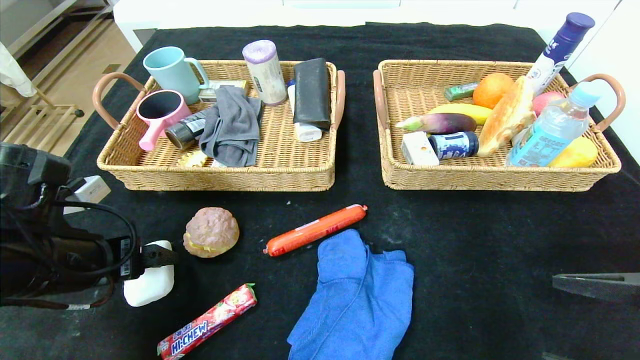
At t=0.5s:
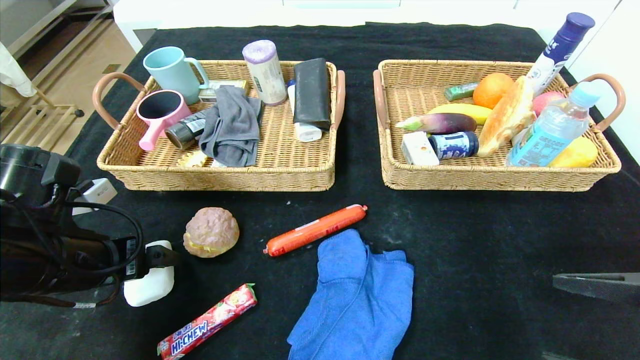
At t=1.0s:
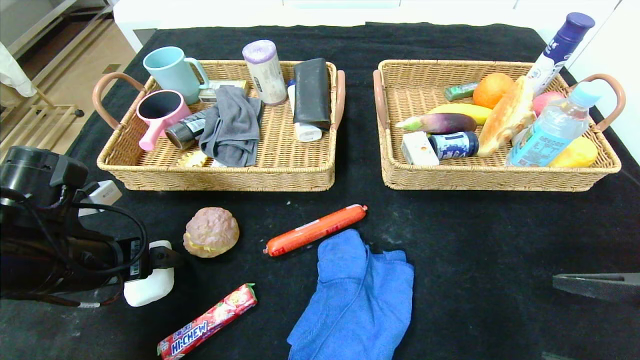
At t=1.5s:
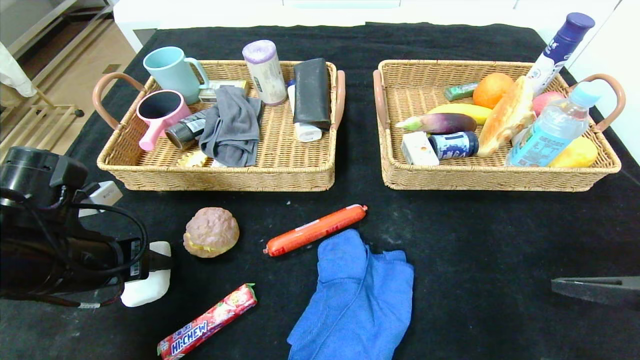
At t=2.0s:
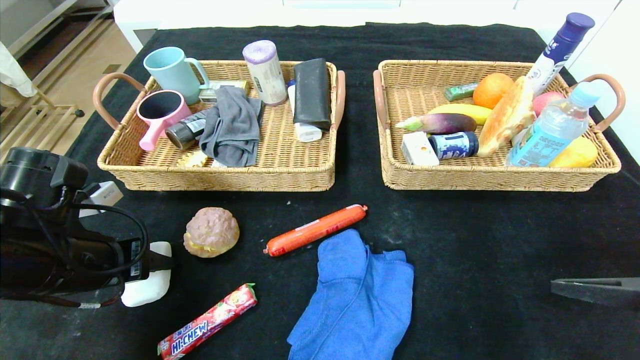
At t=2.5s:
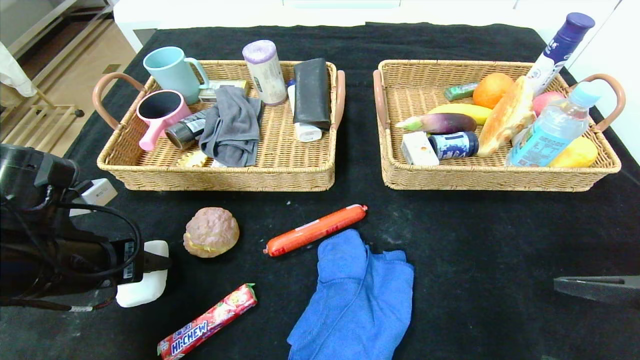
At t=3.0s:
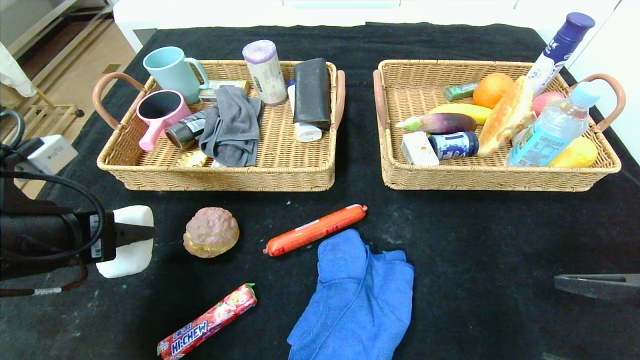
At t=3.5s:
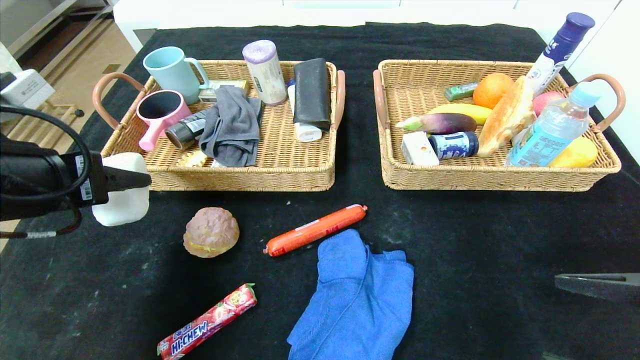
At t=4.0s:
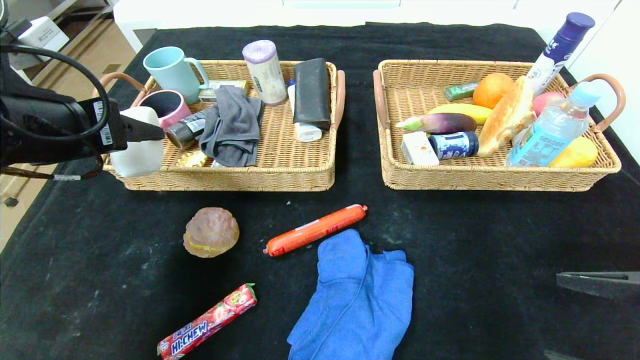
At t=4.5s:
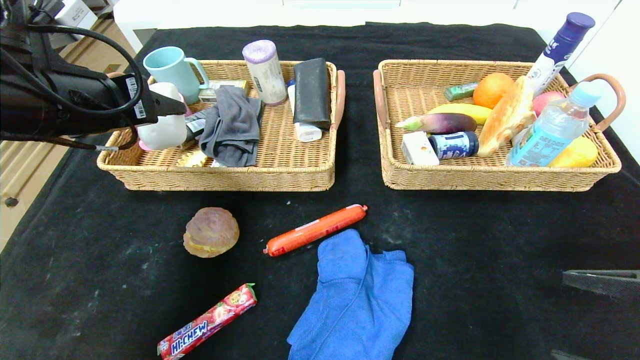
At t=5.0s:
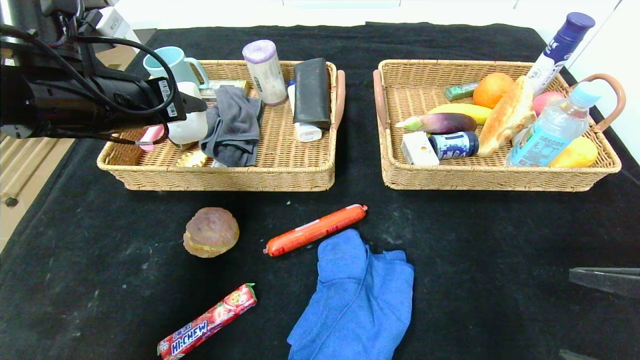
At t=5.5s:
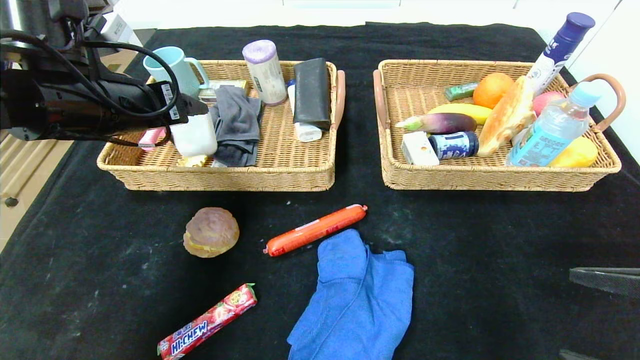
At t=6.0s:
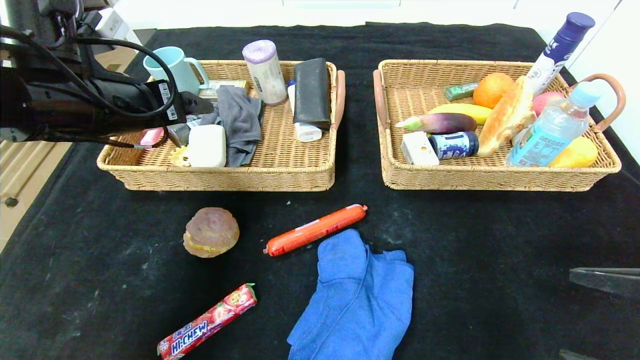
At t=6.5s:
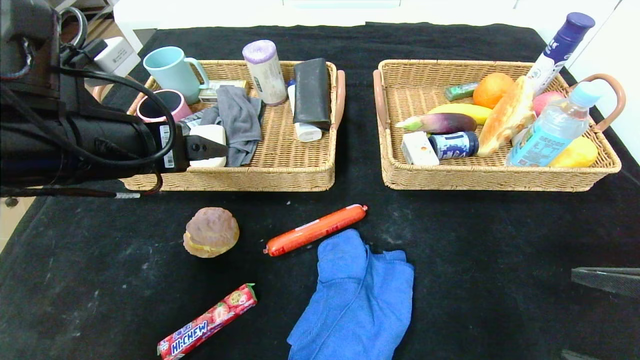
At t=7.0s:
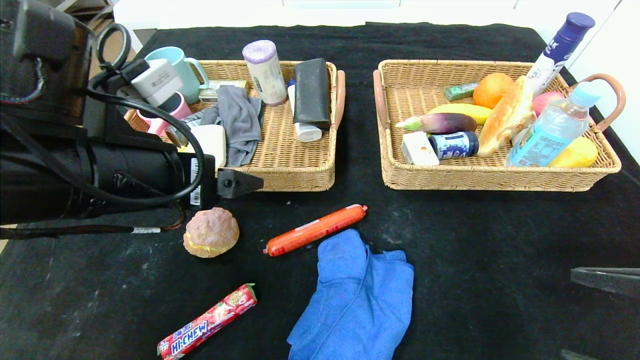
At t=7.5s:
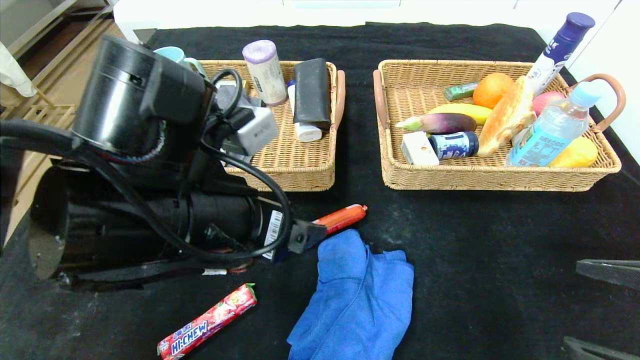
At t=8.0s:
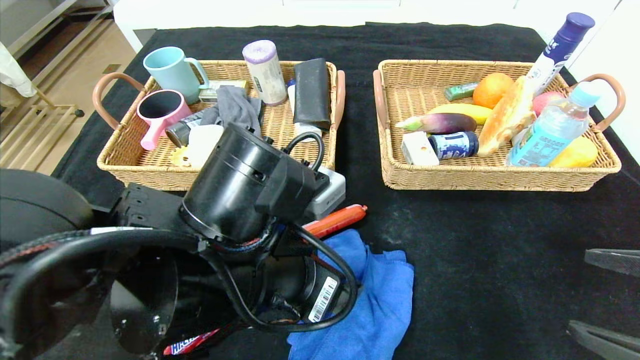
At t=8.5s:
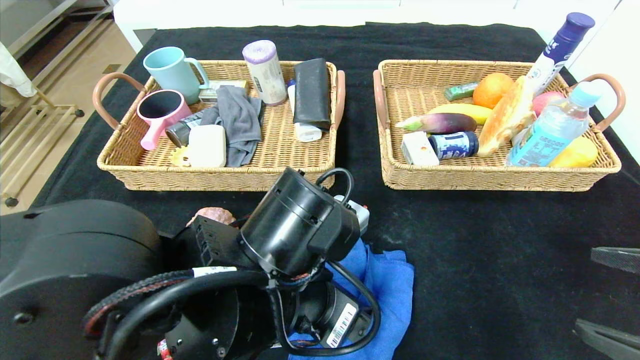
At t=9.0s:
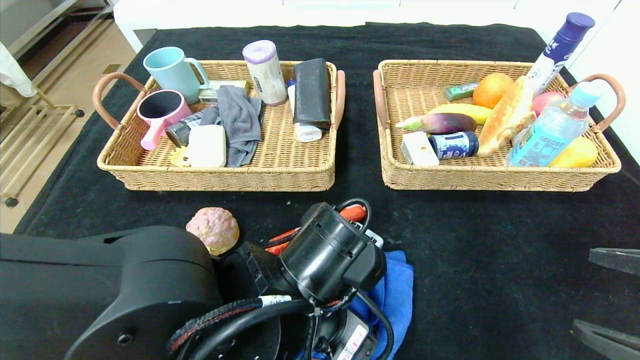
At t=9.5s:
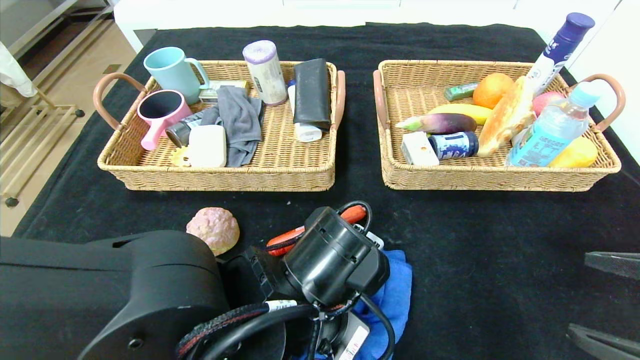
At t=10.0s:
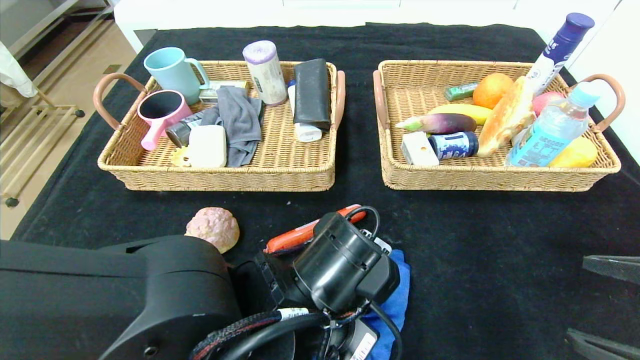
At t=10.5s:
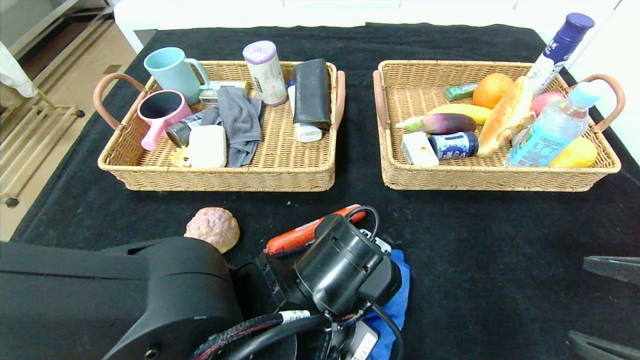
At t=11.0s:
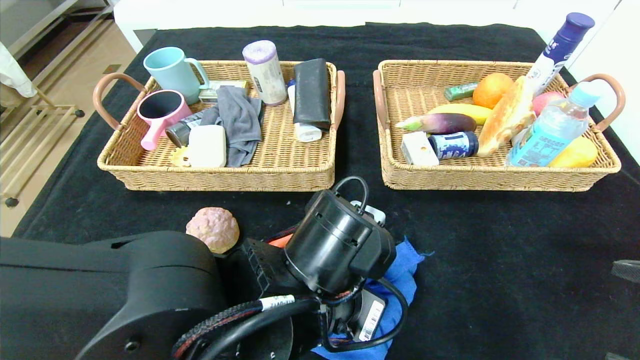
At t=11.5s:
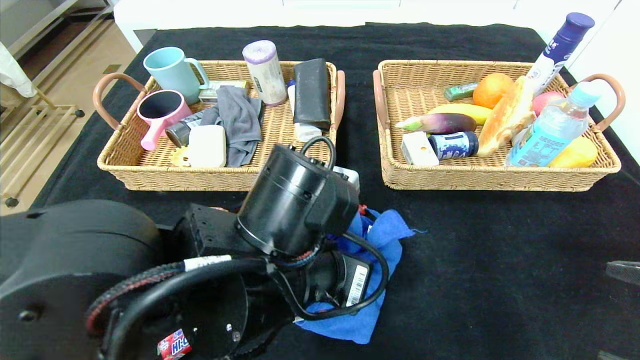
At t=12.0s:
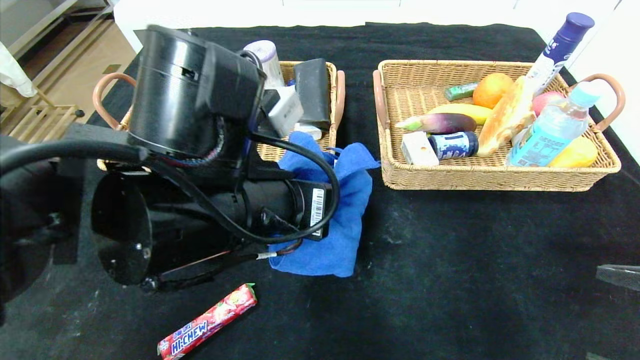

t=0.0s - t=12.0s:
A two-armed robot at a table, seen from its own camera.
Step, t=0.0s - t=6.5s: Pick up the soap and put it in the left basket.
t=0.0s - t=2.0s: The left gripper closes its fingers.
t=2.0s - t=4.0s: The left gripper moves upward, roughly 15 cm.
t=4.0s - t=6.0s: The left gripper shifts approximately 5 cm forward, and opens.
t=6.0s - t=8.0s: The left gripper heads to the right, backward and downward, covering some 25 cm.
t=8.0s - t=10.0s: The left gripper heads downward, covering roughly 5 cm, and closes.
t=10.0s - t=12.0s: The left gripper is displaced upward and to the left by approximately 10 cm.

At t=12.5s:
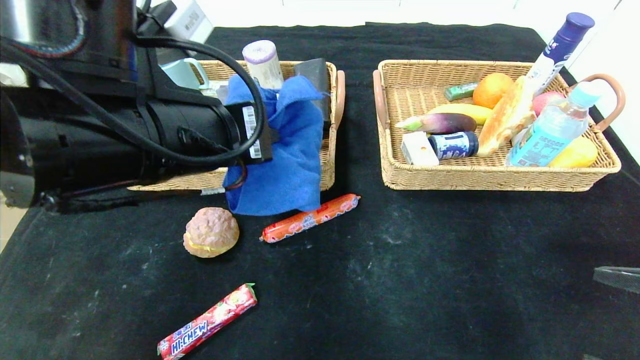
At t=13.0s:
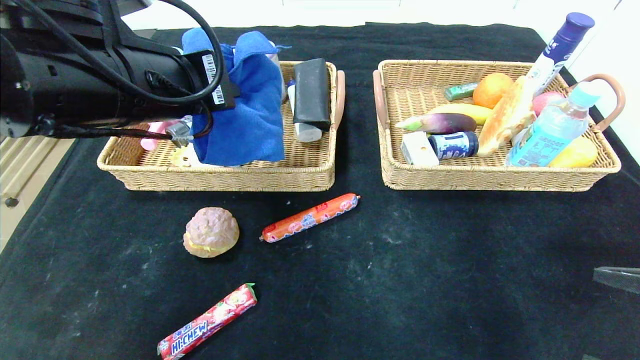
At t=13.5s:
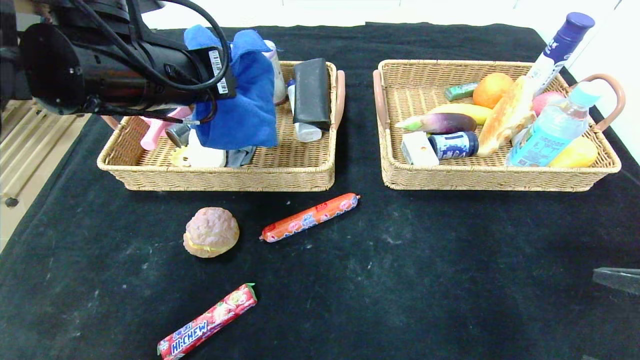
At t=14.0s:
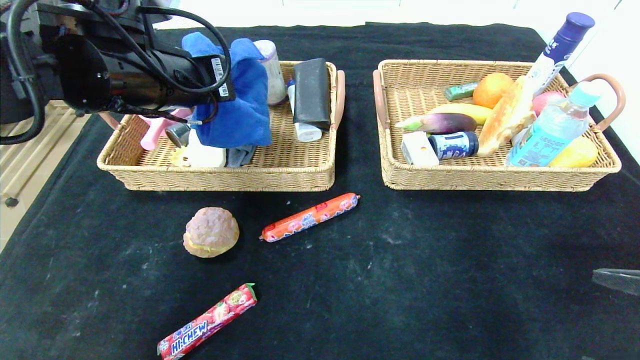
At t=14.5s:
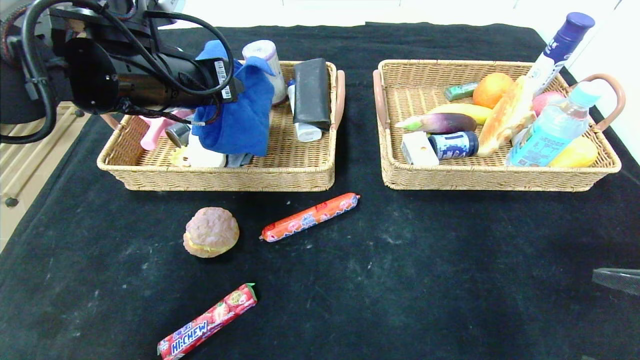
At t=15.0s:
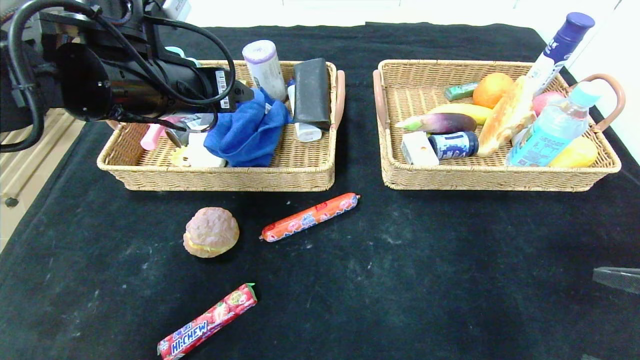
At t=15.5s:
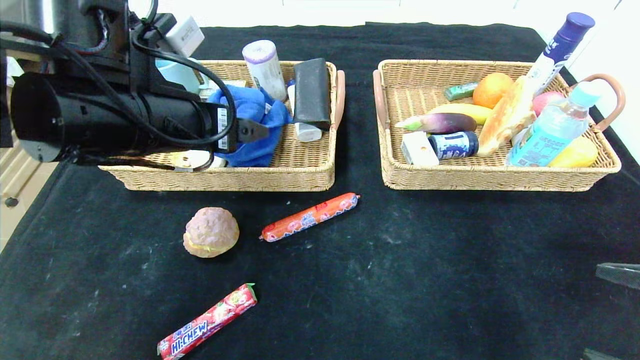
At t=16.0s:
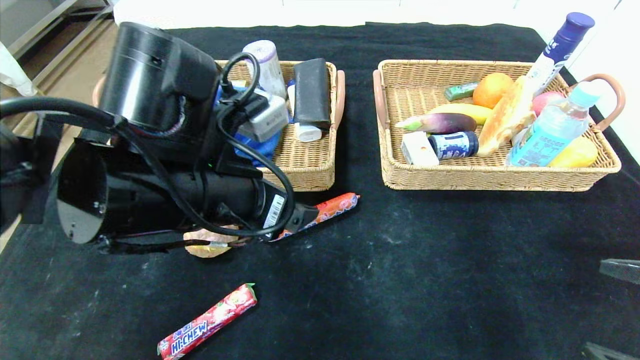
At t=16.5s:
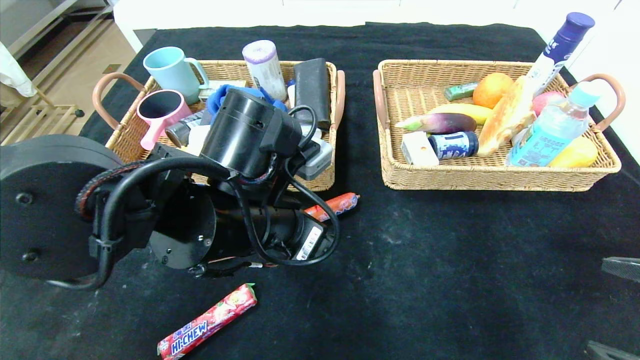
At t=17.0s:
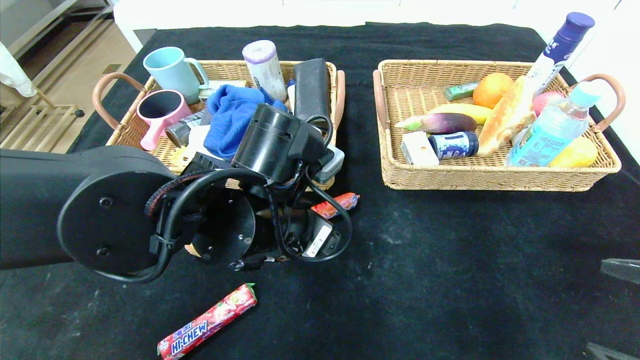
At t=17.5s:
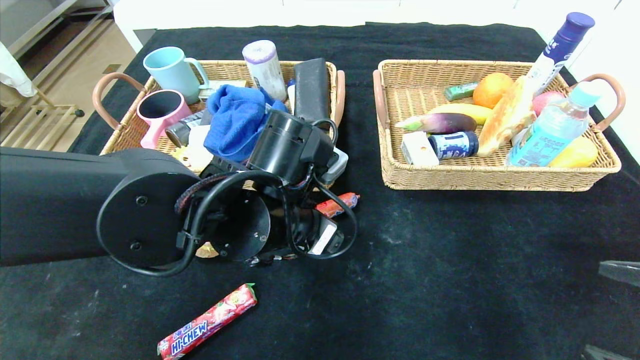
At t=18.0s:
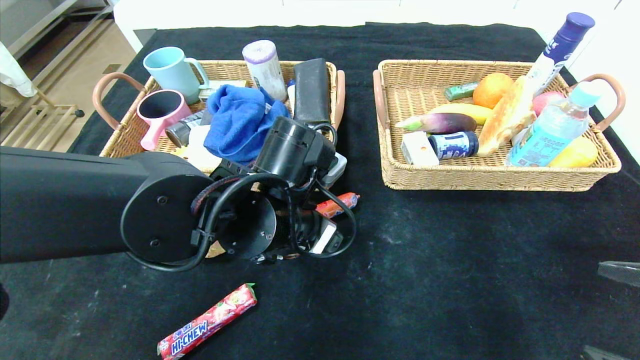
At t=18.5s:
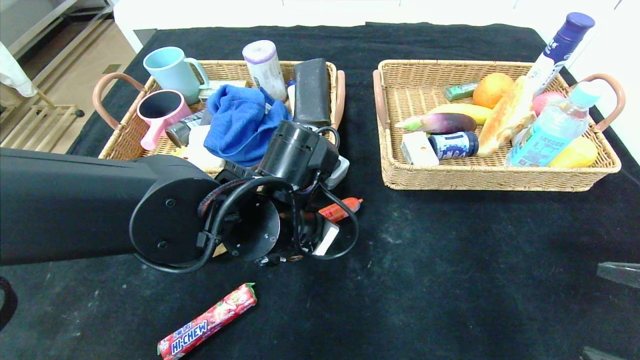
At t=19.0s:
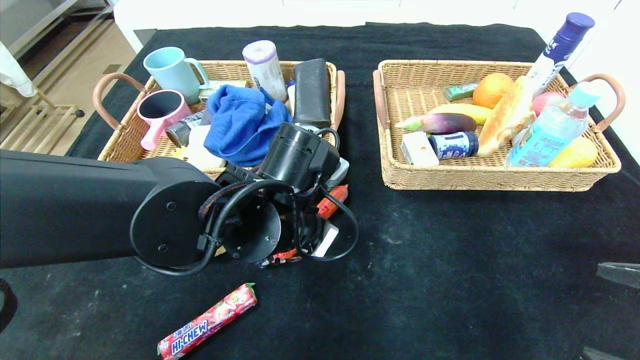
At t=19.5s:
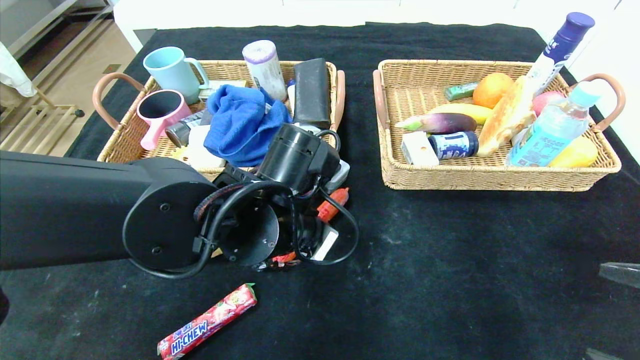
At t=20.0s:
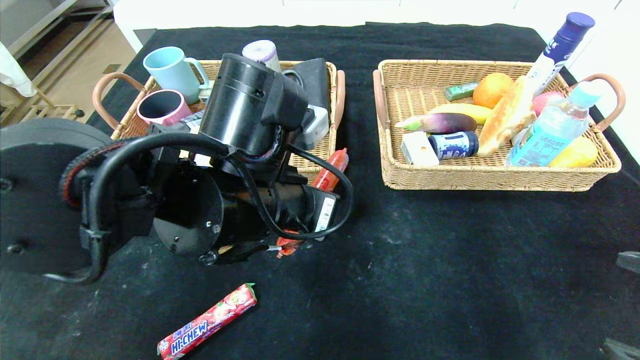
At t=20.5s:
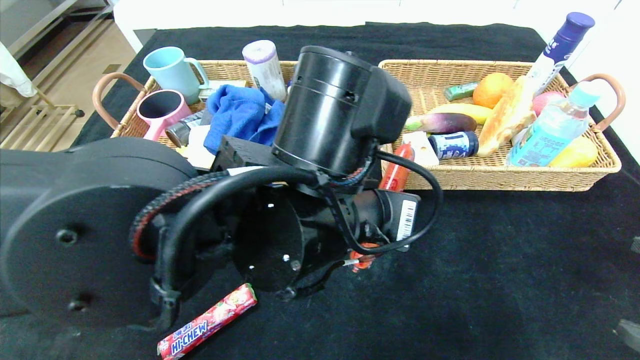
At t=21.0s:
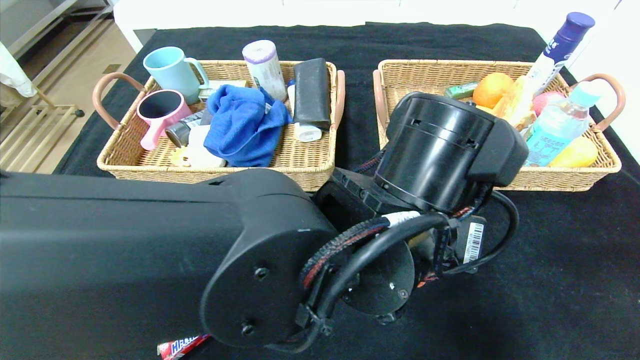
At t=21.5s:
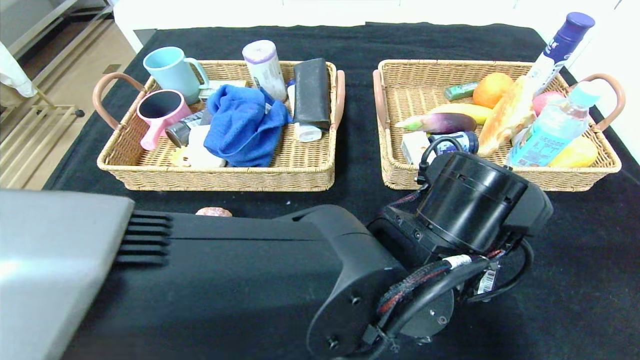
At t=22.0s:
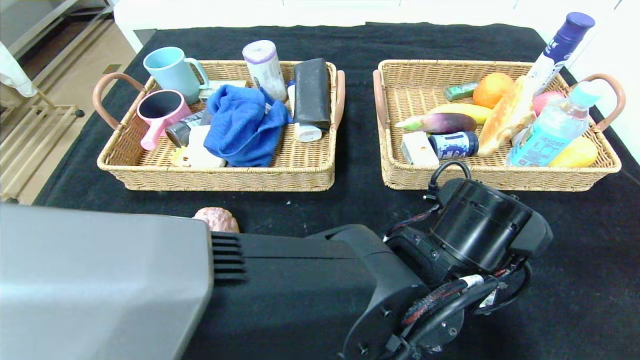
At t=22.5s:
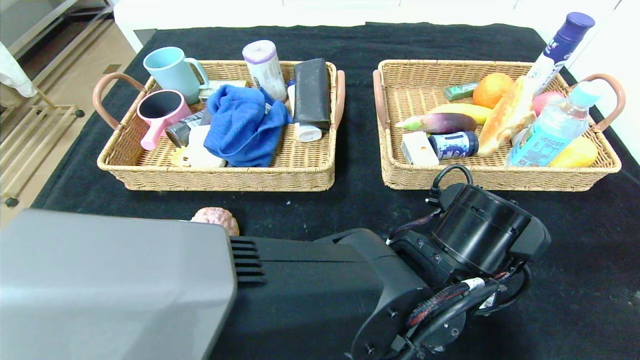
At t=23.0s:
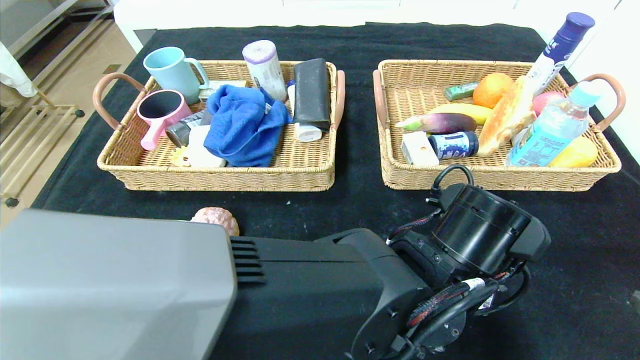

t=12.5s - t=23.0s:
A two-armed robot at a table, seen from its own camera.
Step, t=12.5s - t=15.5s: Pick up the blue towel and put it in the left basket.
t=12.5s - t=14.5s: The left gripper goes approximately 10 cm forward and to the left, and opens up.
t=14.5s - t=16.5s: The left gripper goes approximately 15 cm downward, to the right and backward, and opens up.
t=16.5s - t=19.0s: The left gripper changes place by about 5 cm, and closes its fingers.
t=19.0s - t=21.0s: The left gripper heads to the right and backward, covering about 15 cm.
t=21.0s - t=23.0s: The left gripper shifts some 5 cm downward, and opens up.
